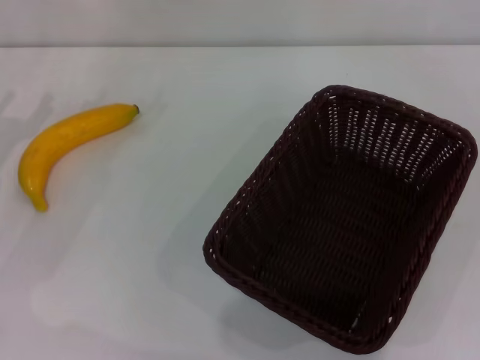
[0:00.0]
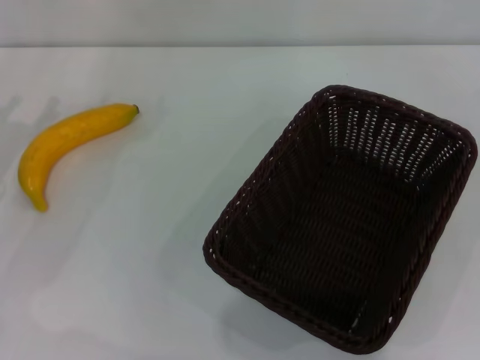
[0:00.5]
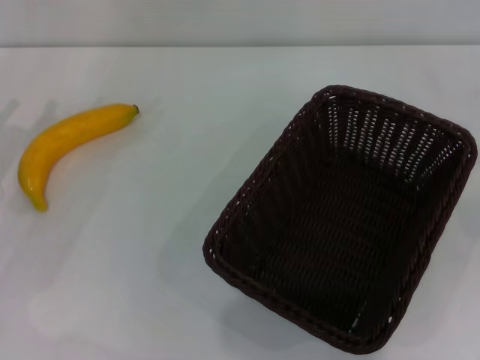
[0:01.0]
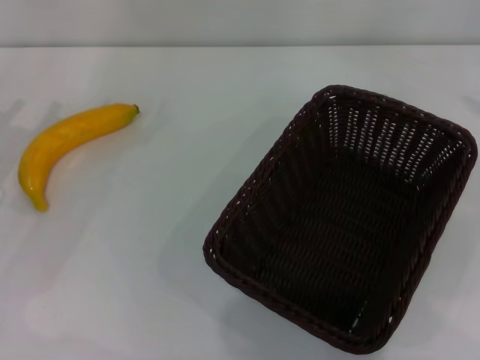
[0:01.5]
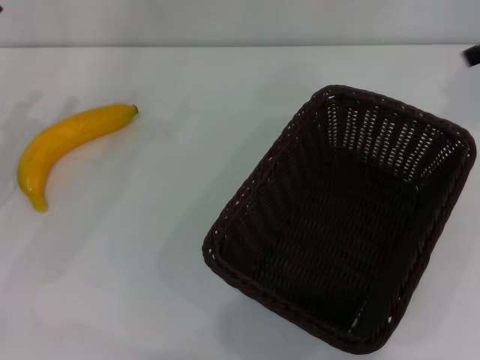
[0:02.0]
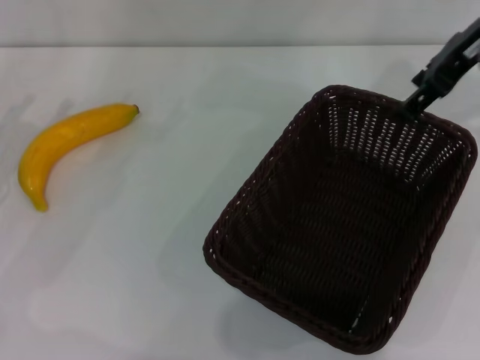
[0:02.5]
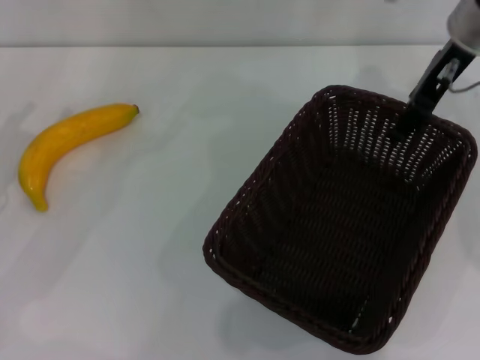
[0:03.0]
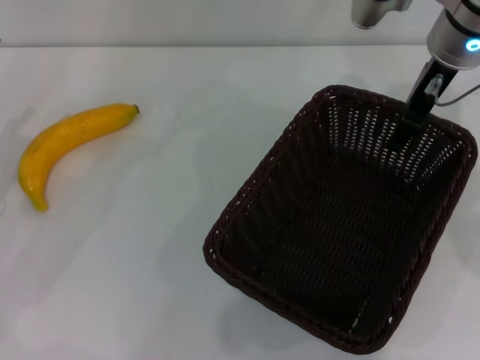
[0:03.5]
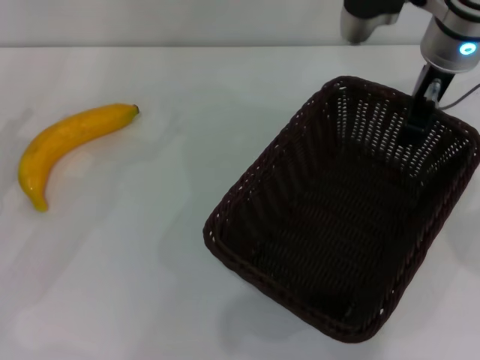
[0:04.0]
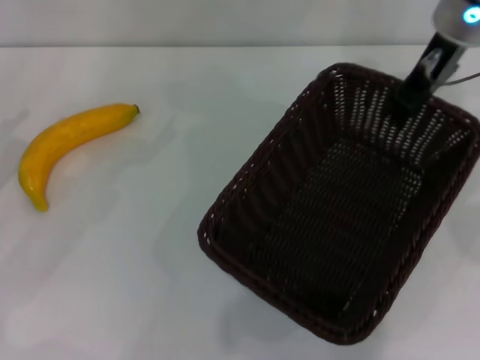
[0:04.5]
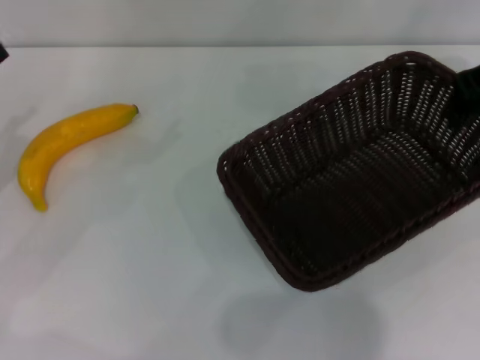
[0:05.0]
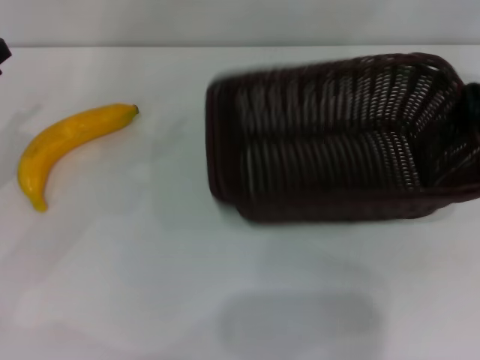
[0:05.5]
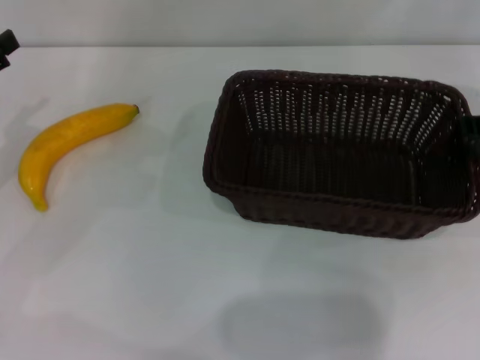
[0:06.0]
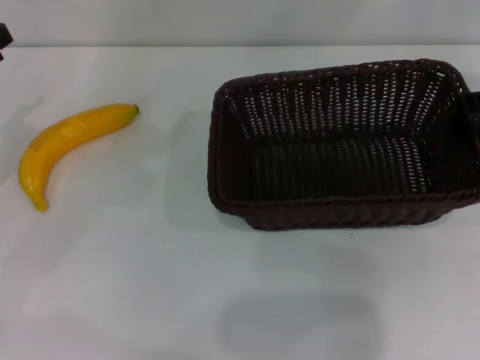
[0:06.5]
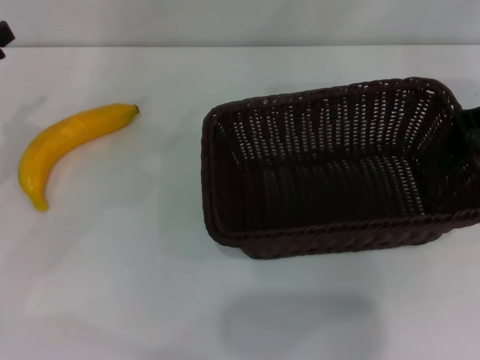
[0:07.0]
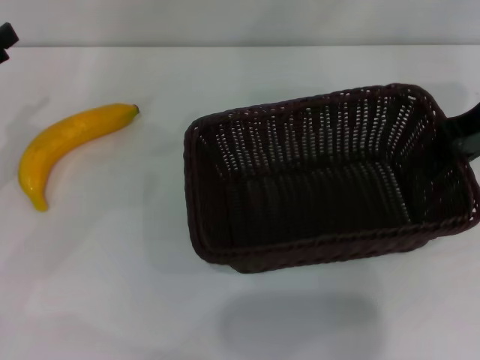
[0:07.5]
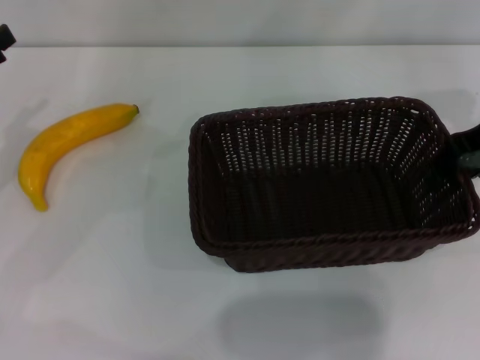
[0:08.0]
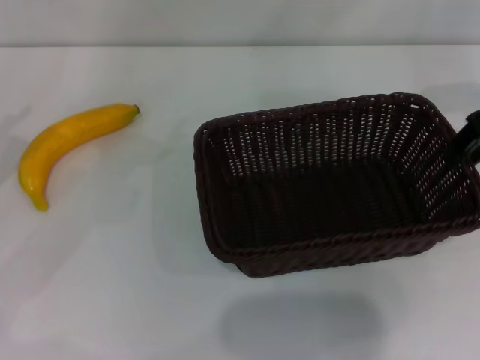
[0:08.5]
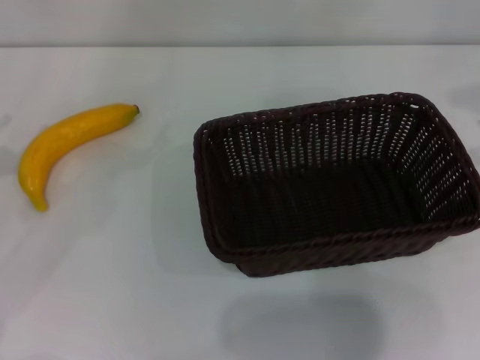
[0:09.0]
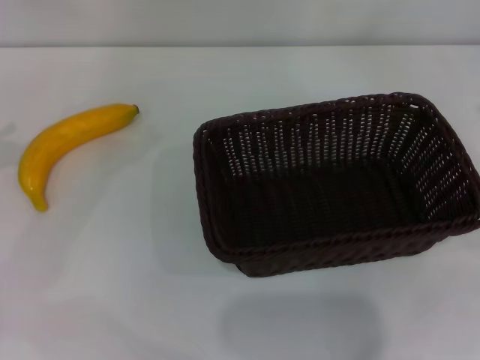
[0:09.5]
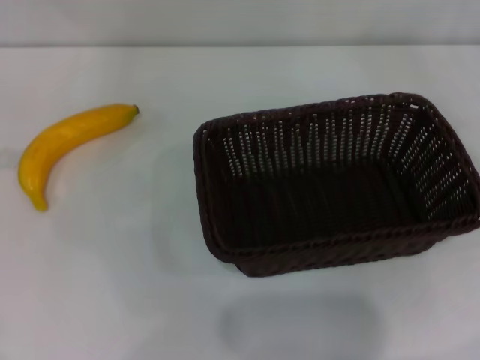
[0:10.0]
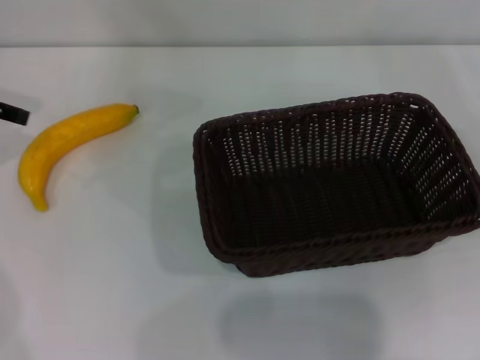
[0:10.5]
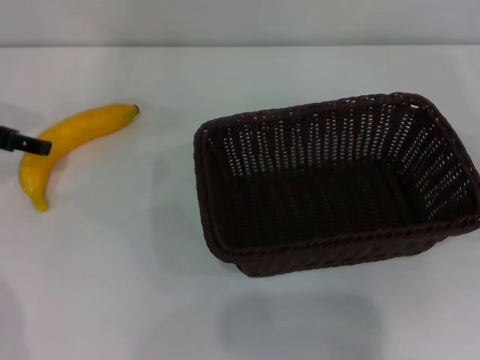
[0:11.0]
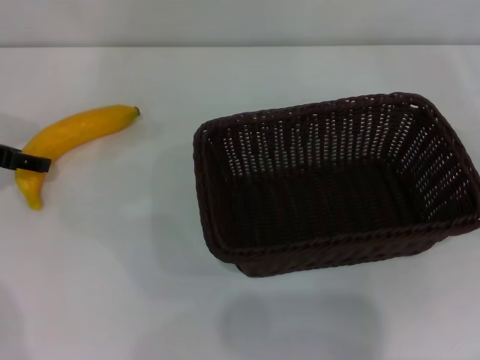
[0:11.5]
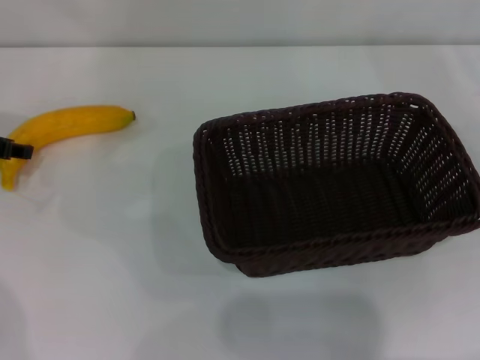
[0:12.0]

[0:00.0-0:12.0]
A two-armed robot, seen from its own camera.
Step, 0:00.0 to 0:04.5: Pick up the dark basket with the right gripper.
Step, 0:05.0 to 0:08.5: Place the dark basket in the center of view with the right gripper.
0:00.0 to 0:02.0: The right gripper heads upward, forward and to the left, covering roughly 30 cm.
0:02.0 to 0:04.0: The right gripper is displaced to the left by roughly 15 cm, and closes.
0:04.0 to 0:06.0: The right gripper is displaced to the right by about 10 cm, and closes.
0:06.0 to 0:08.0: There are only small adjustments of the grippers.
0:08.0 to 0:10.0: The left gripper shifts about 10 cm upward, while the right gripper travels to the right, backward and downward by some 20 cm.
0:10.0 to 0:12.0: The left gripper heads downward, covering some 10 cm, and closes.

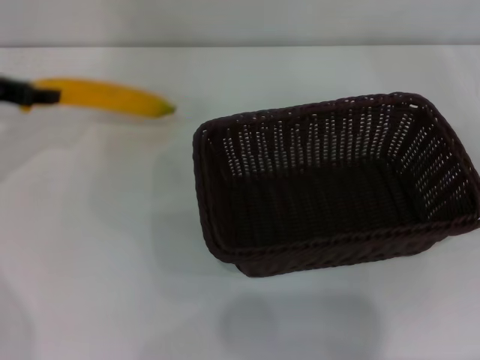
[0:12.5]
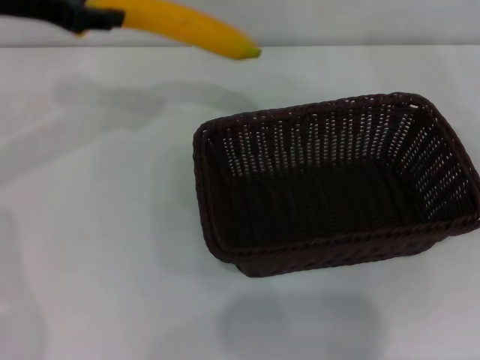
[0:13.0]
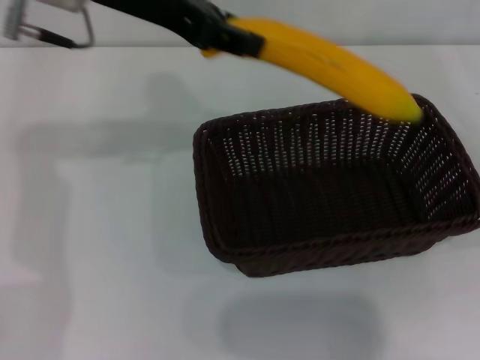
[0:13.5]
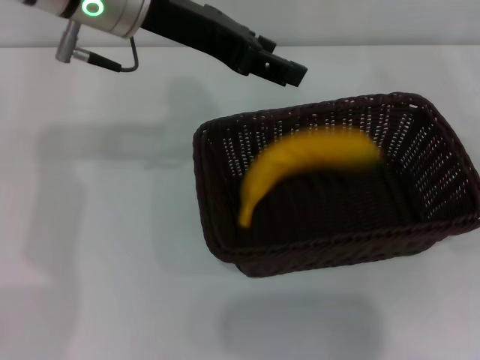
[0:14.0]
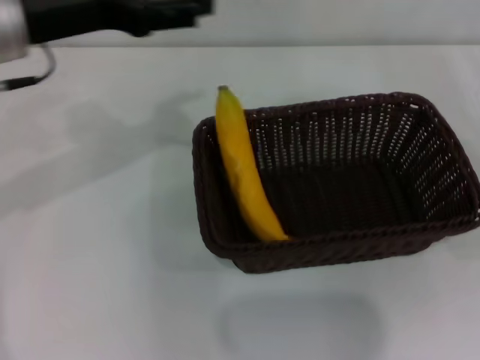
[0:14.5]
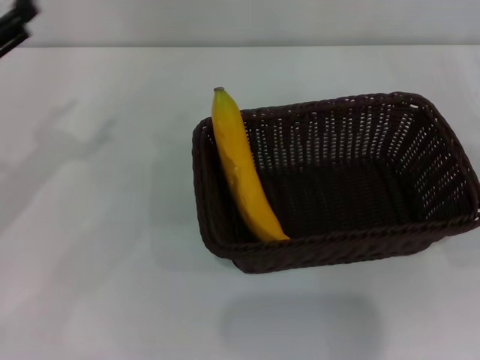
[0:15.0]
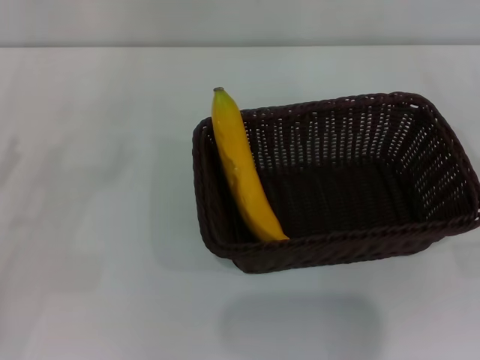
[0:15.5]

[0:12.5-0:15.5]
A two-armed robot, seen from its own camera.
Step, 0:13.0 to 0:14.0: Place the banana into the dark basket with the left gripper.
0:12.5 to 0:14.0: The left gripper heads to the right and upward, covering about 20 cm, and opens up.
0:14.0 to 0:15.5: The right gripper ends up about 5 cm from where it was; the left gripper shifts roughly 35 cm to the left, downward and backward, and opens its fingers.
